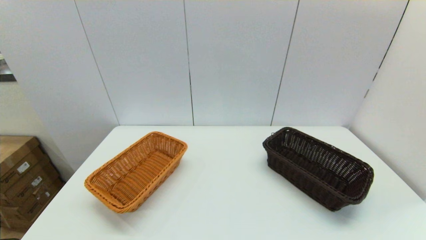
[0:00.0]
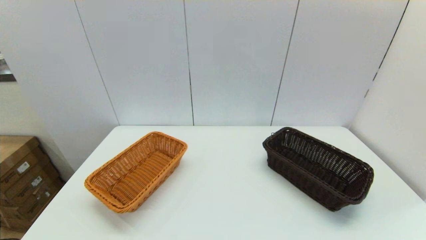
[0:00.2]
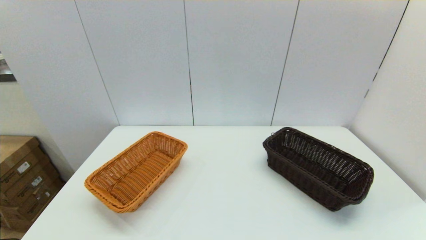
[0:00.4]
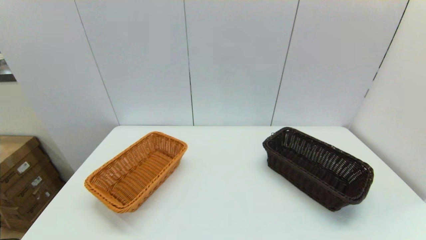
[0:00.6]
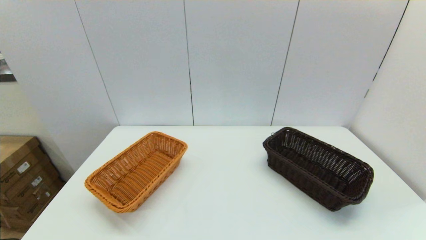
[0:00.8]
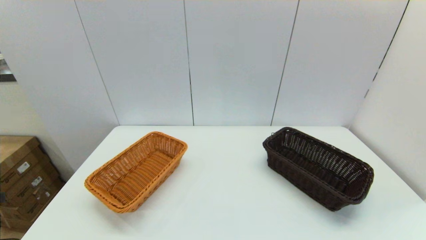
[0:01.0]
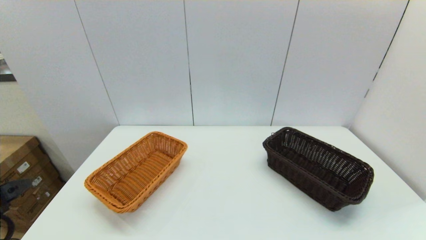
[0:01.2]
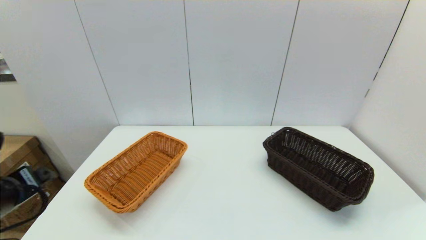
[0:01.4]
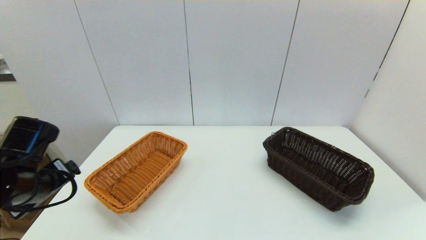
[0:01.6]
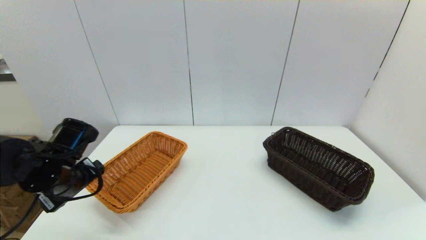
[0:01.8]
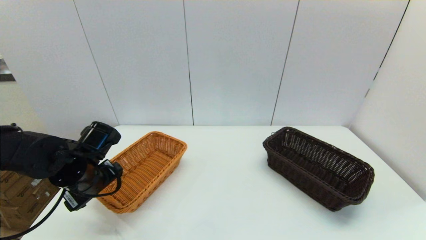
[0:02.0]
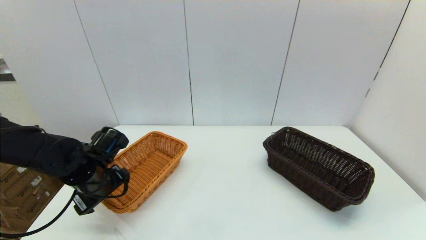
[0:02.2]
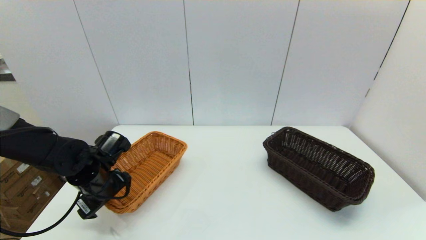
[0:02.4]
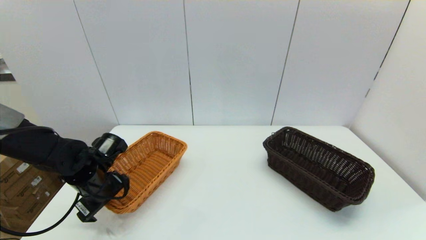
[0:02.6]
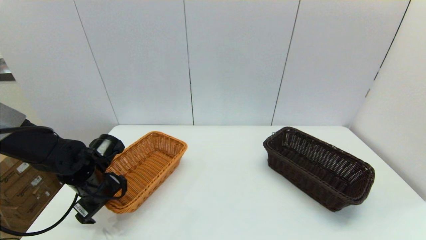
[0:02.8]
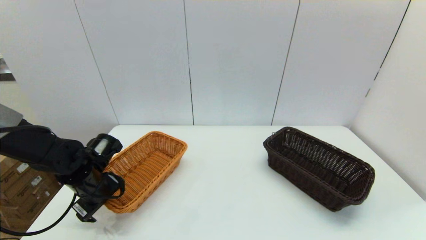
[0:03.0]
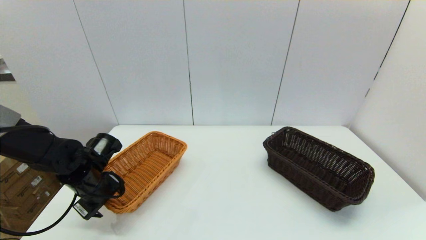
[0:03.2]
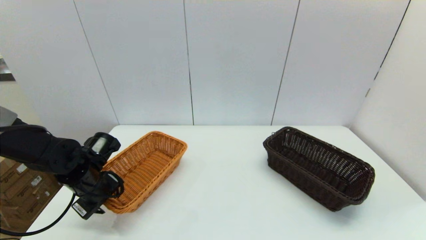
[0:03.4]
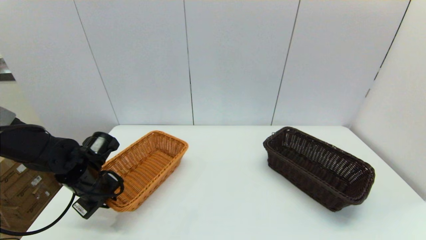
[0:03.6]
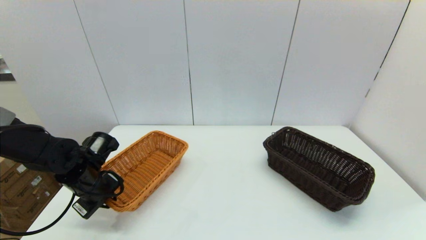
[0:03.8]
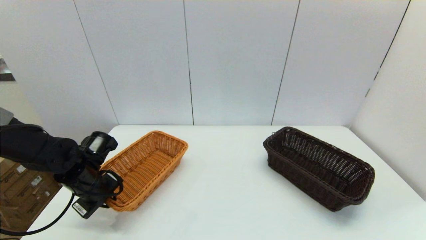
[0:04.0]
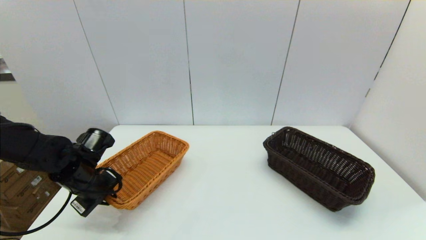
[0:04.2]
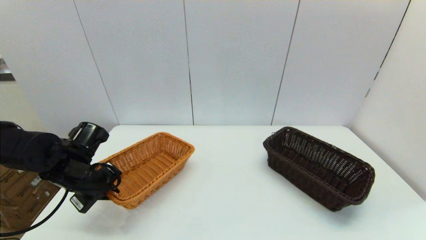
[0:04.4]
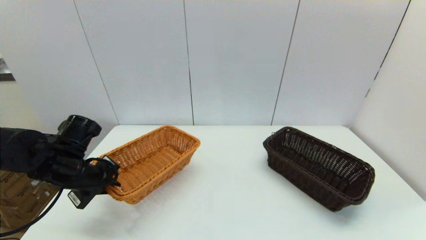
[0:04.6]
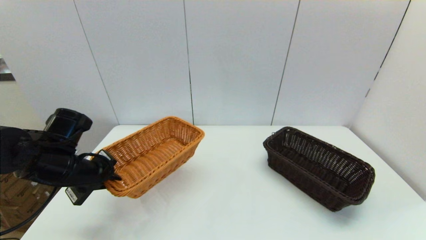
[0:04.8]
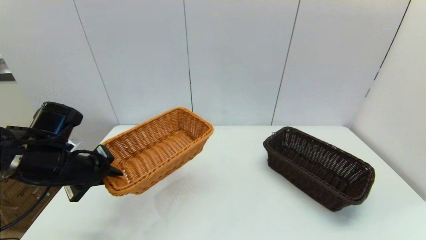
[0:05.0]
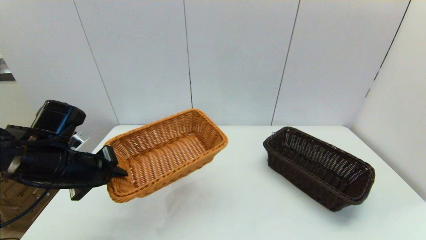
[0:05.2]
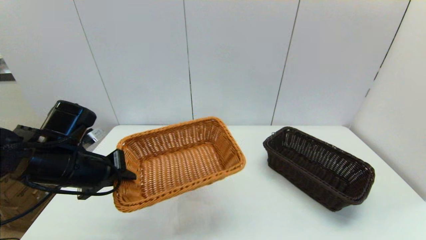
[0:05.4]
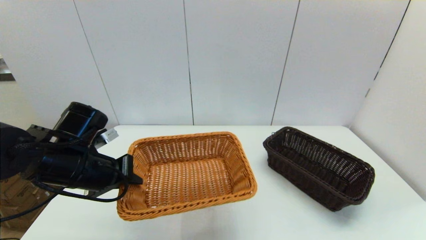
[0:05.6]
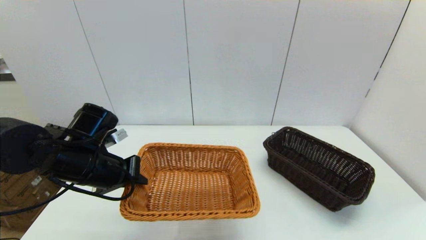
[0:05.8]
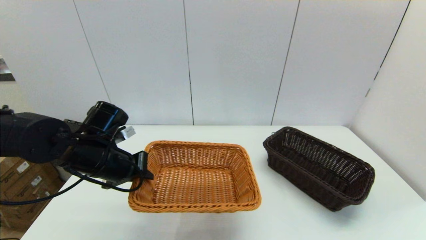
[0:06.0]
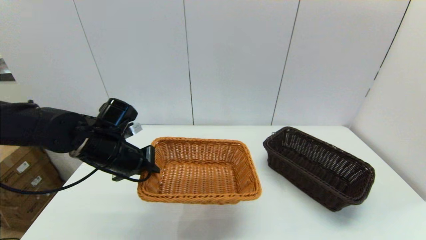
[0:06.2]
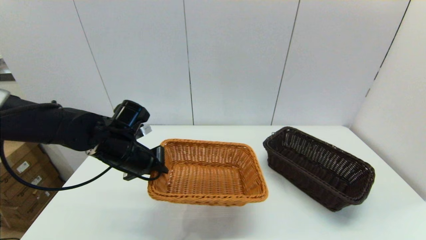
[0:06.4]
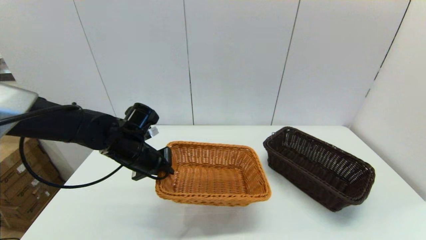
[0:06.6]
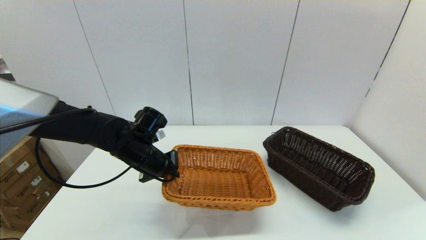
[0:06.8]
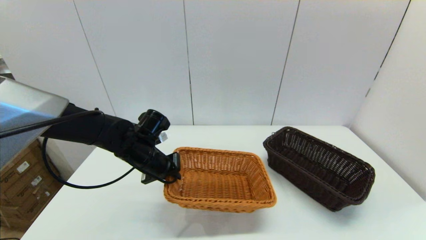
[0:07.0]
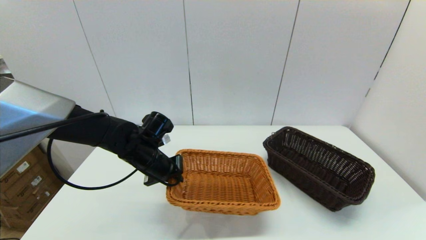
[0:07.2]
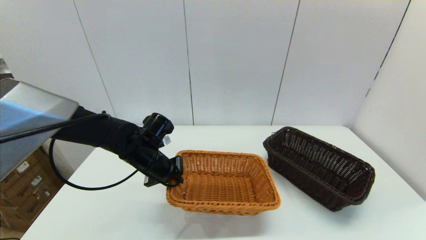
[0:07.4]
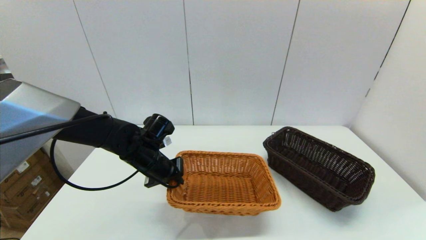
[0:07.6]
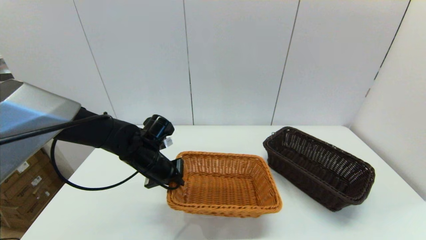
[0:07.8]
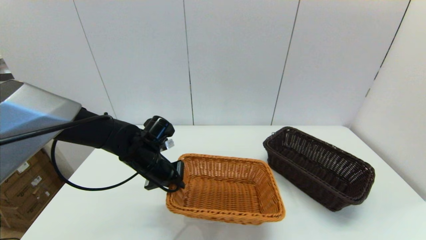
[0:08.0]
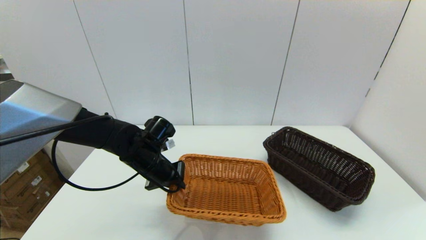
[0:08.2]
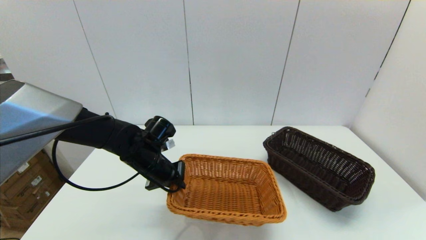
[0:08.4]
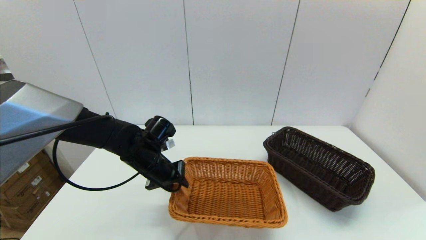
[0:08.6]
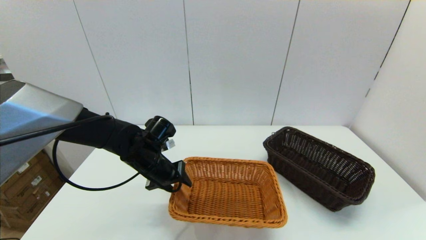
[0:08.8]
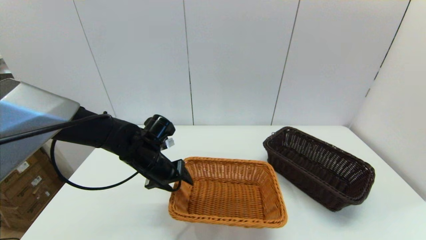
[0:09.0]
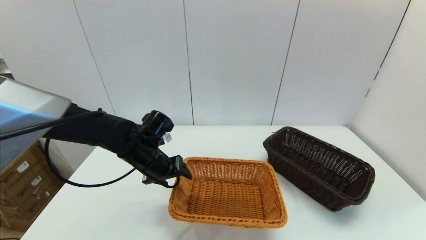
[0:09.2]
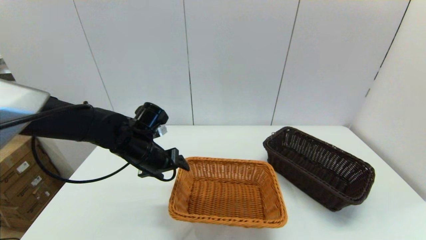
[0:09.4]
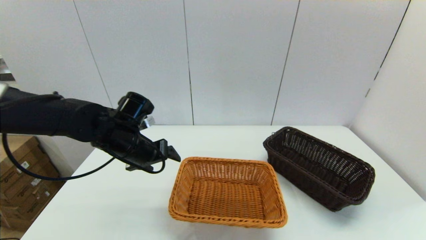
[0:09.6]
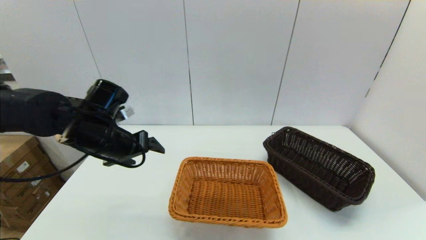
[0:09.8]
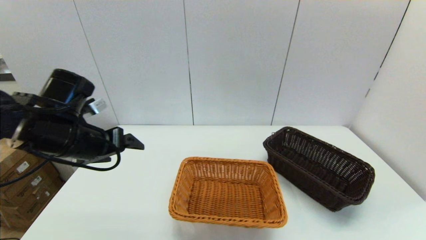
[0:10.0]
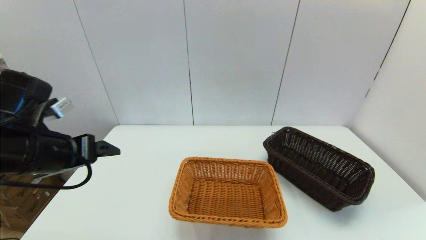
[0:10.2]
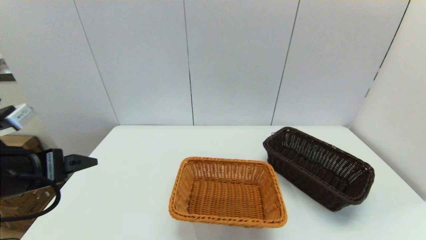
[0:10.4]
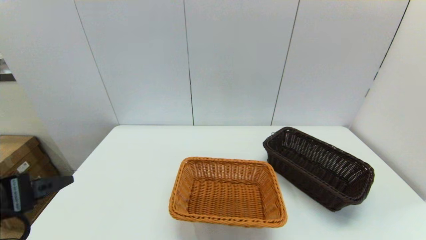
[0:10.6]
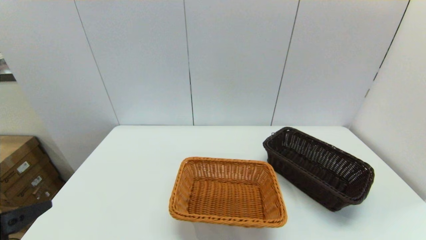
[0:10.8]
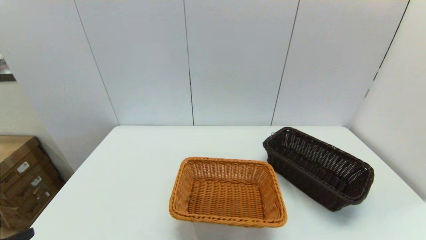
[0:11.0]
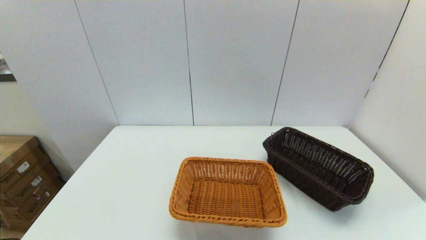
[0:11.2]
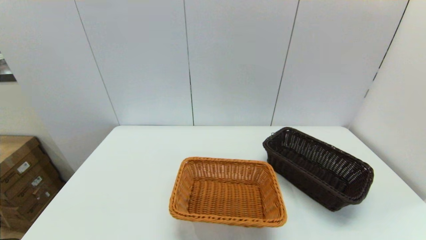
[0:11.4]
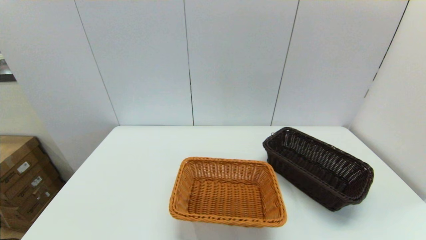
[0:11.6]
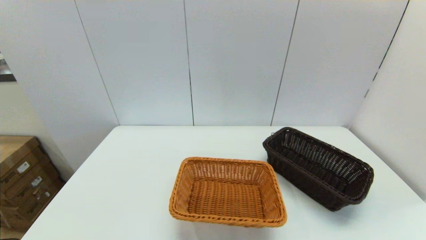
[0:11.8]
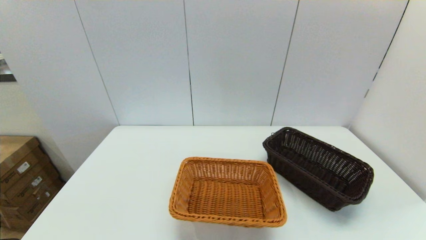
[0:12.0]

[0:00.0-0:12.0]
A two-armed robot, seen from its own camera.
Task of the whole recording: stack a basket on top of another basket.
Step, 0:01.0 to 0:04.0: Grasp the light basket with the left gripper.
Step, 0:04.4 to 0:09.4: Place the light basket on the middle of the table with the left gripper.
0:00.0 to 0:01.6: The left gripper travels forward by approximately 25 cm.
0:01.6 to 0:03.0: The left gripper is displaced downward and forward by some 10 cm.
0:03.0 to 0:04.4: The left gripper closes up.
0:04.4 to 0:06.0: The left gripper travels to the right by about 5 cm.
0:06.0 to 0:07.6: The left gripper is displaced to the right, downward and forward by approximately 10 cm.
0:07.6 to 0:09.0: The left gripper opens up.
0:09.0 to 0:10.4: The left gripper shifts some 25 cm backward, upward and to the left.
0:10.4 to 0:12.0: The left gripper is displaced backward and downward by about 20 cm.

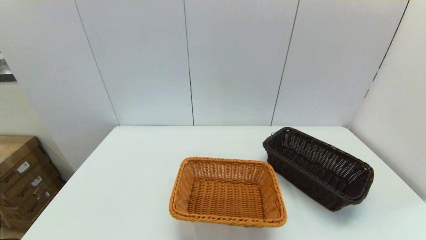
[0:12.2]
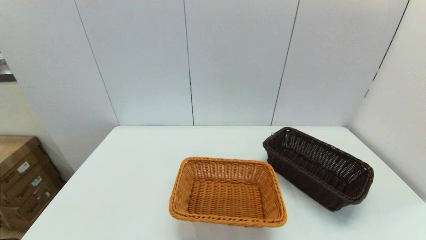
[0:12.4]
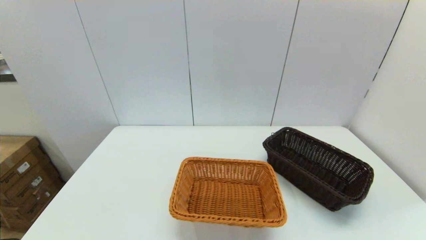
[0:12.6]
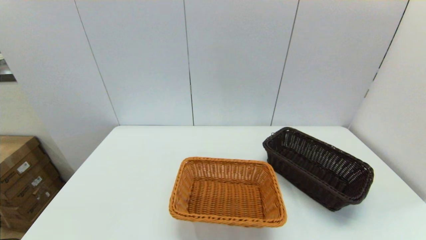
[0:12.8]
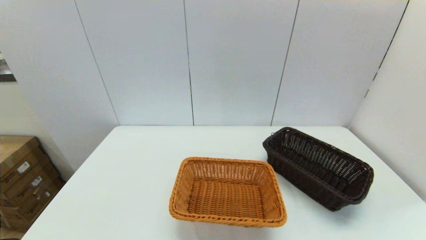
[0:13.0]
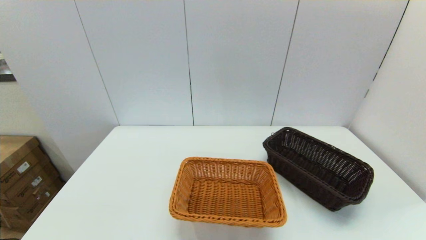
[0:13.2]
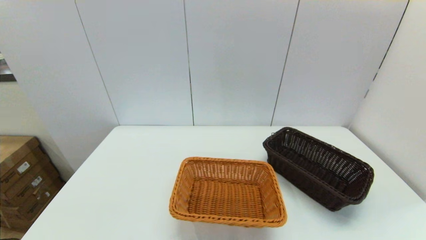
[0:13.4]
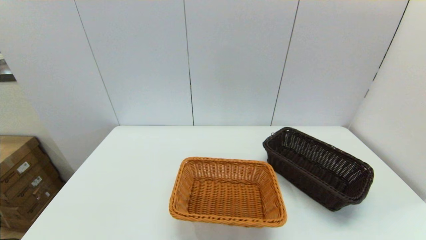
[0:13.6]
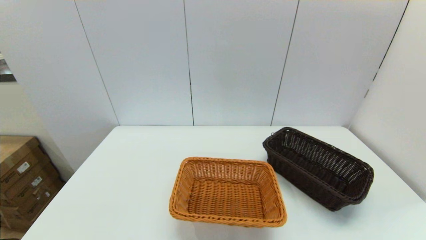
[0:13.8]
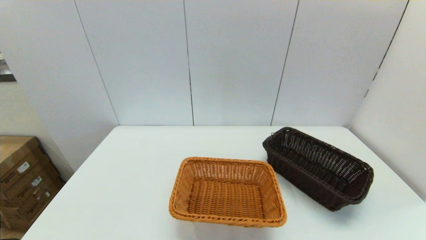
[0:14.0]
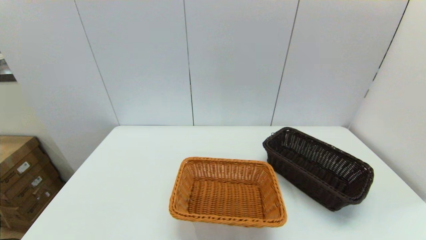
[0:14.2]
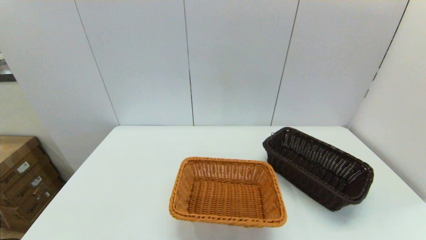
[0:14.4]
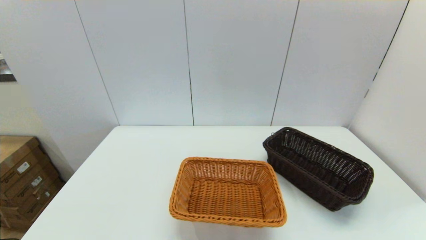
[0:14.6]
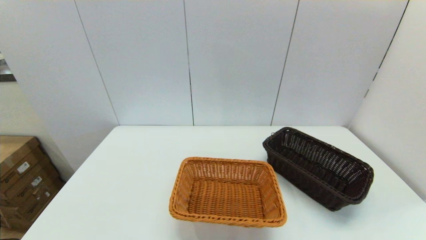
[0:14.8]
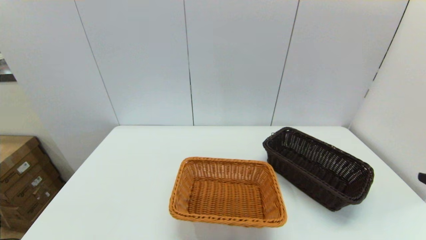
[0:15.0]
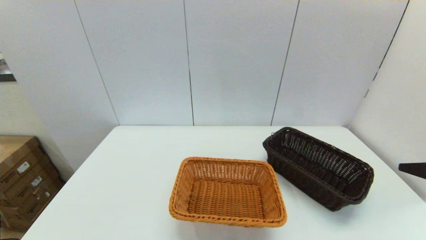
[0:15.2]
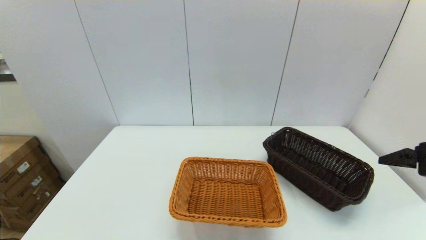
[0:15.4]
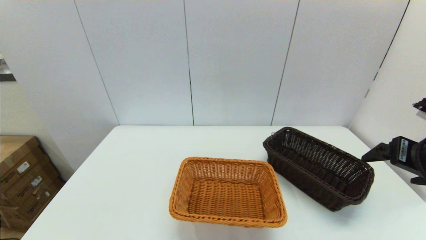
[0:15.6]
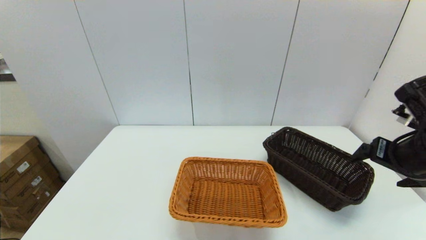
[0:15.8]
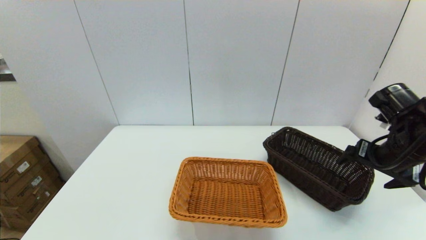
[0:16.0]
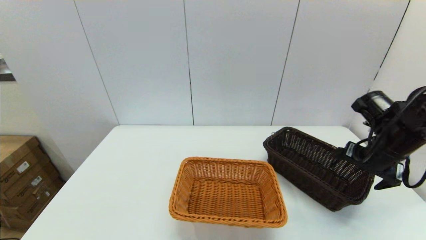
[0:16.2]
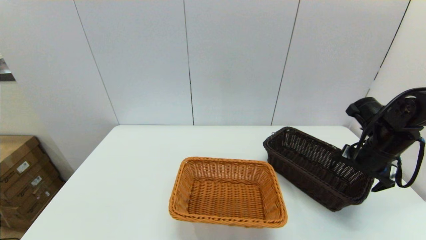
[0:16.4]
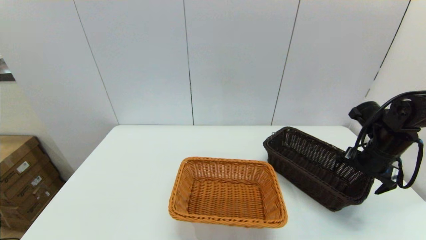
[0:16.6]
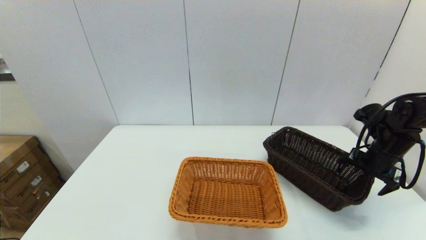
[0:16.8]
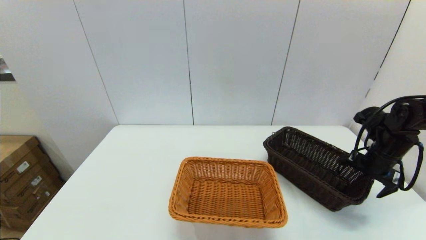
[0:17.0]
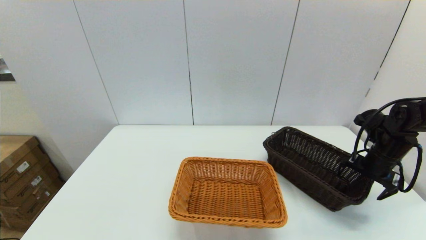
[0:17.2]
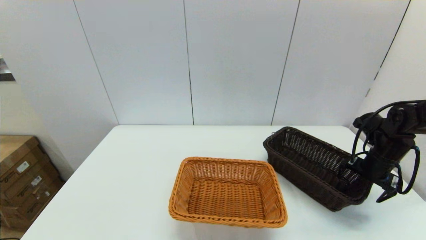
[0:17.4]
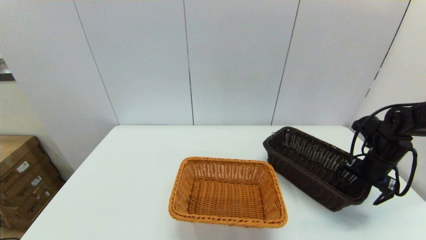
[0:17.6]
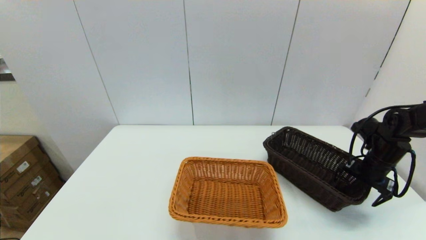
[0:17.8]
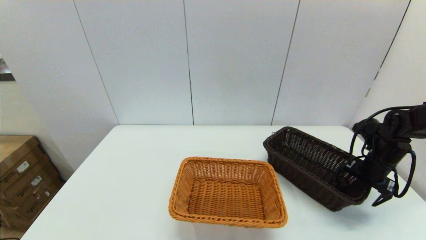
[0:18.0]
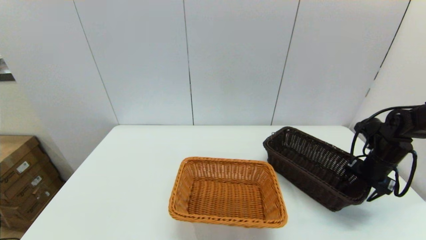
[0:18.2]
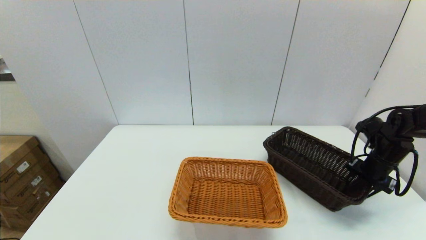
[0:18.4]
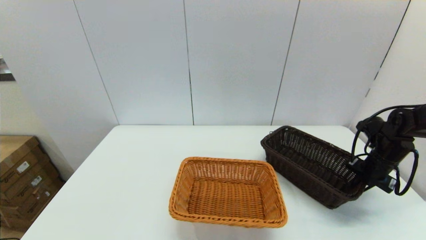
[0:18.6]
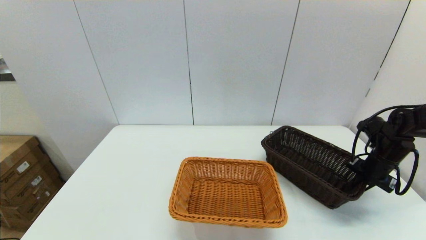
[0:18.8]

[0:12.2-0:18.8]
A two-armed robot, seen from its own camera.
Task of the whole recording: stack a basket on top of another basket.
0:13.8 to 0:15.4: The right gripper shifts roughly 25 cm forward and upward.
0:15.4 to 0:17.2: The right gripper is displaced forward and downward by about 20 cm.
0:17.2 to 0:18.8: The right gripper closes.
